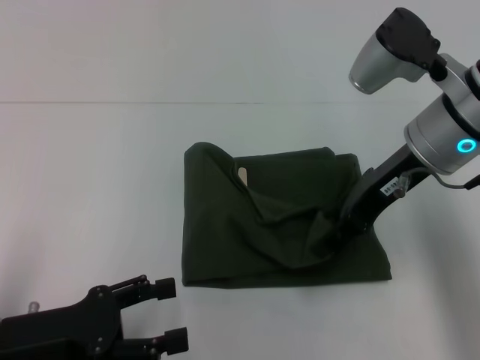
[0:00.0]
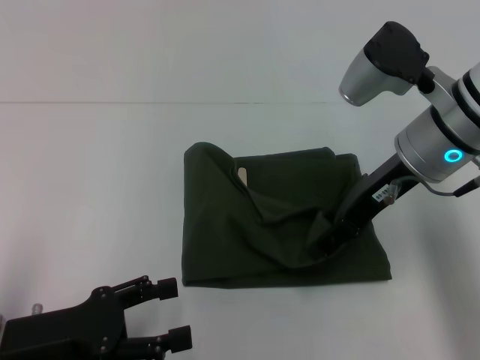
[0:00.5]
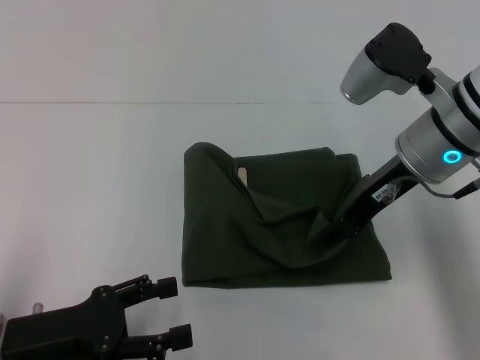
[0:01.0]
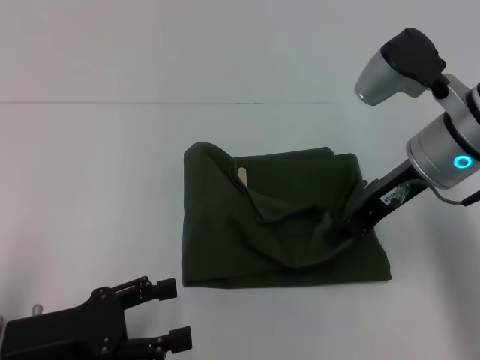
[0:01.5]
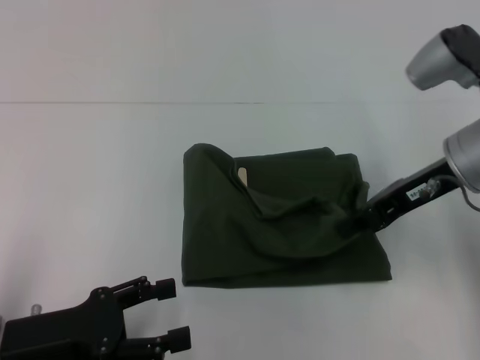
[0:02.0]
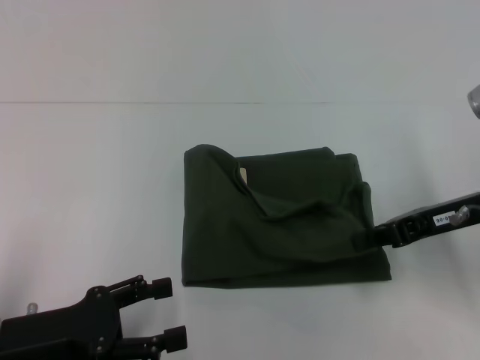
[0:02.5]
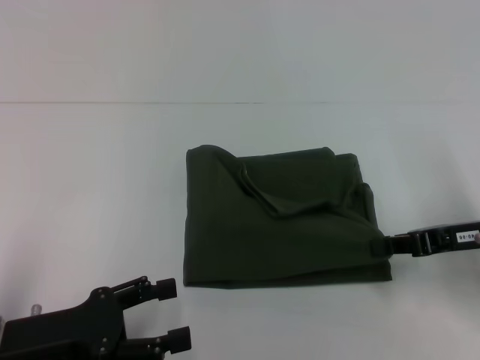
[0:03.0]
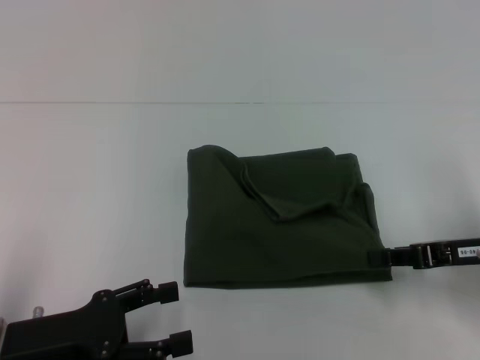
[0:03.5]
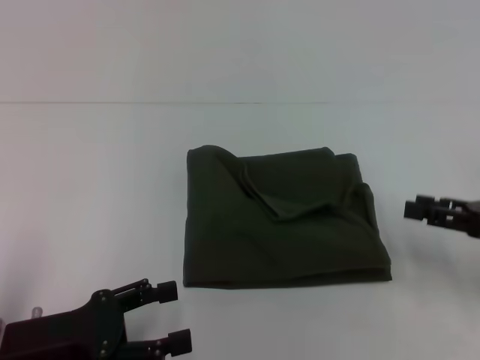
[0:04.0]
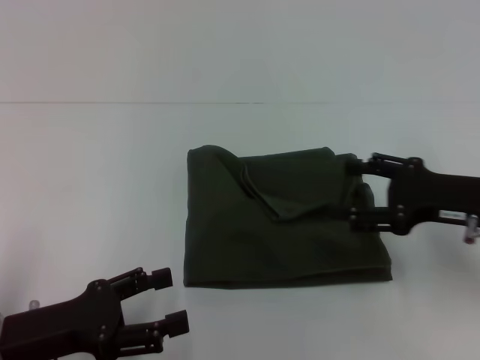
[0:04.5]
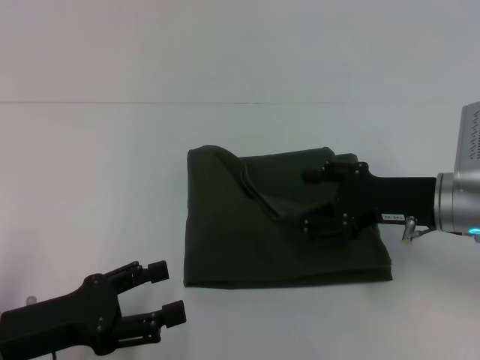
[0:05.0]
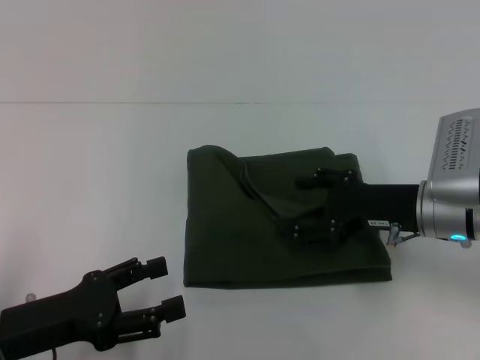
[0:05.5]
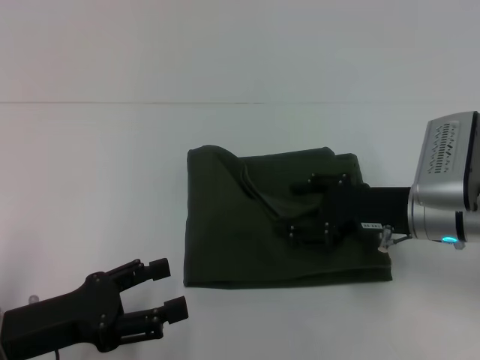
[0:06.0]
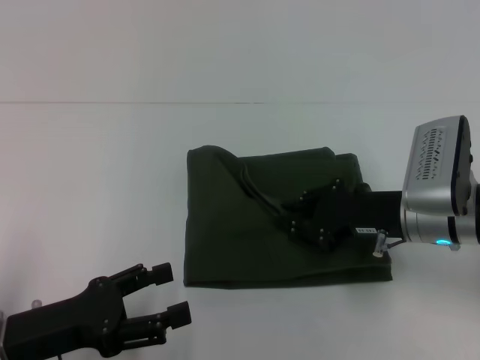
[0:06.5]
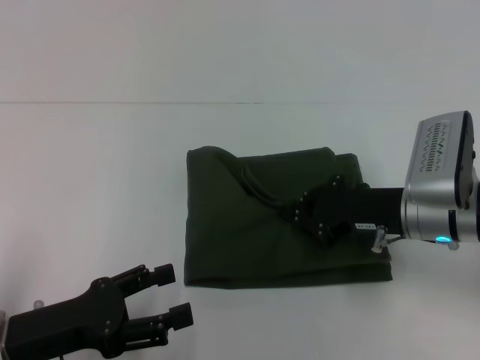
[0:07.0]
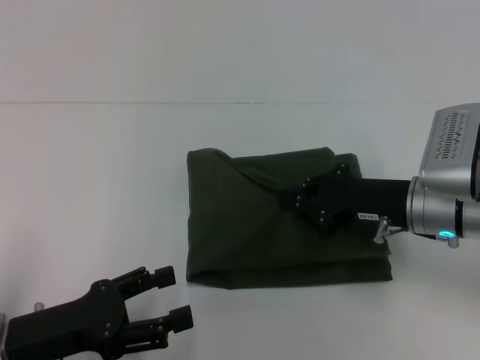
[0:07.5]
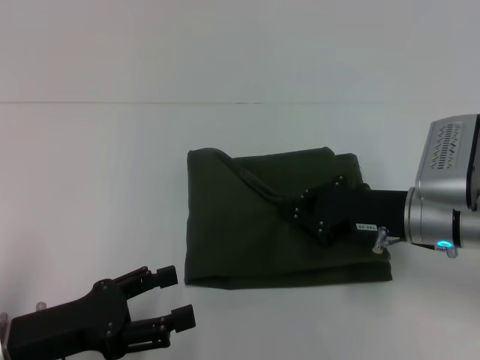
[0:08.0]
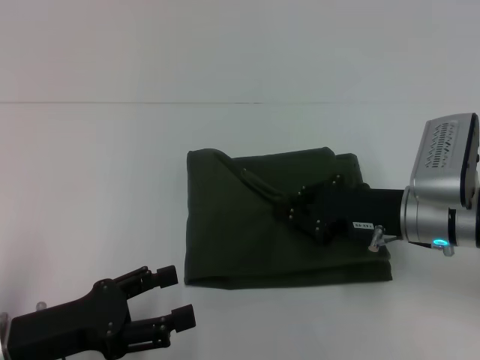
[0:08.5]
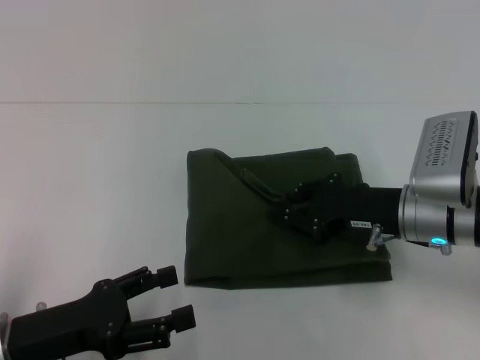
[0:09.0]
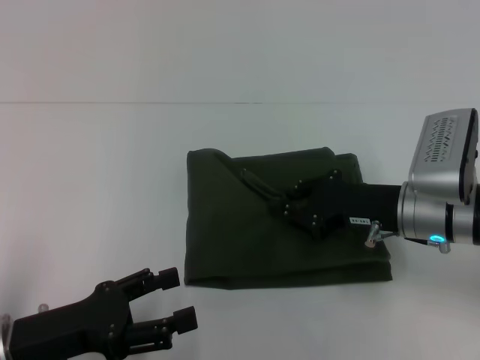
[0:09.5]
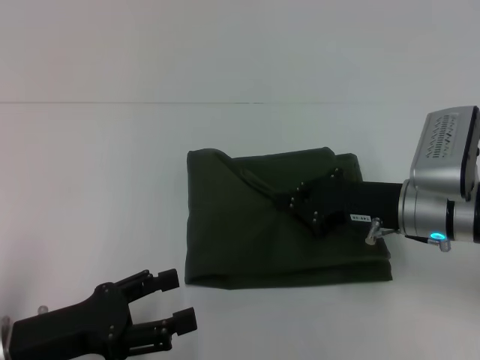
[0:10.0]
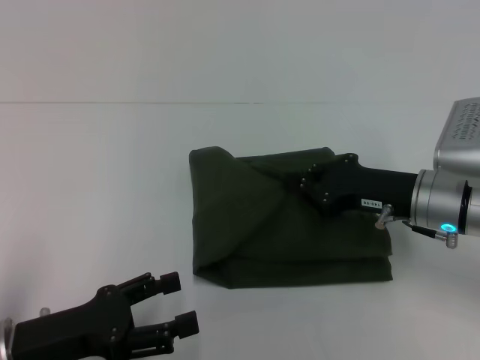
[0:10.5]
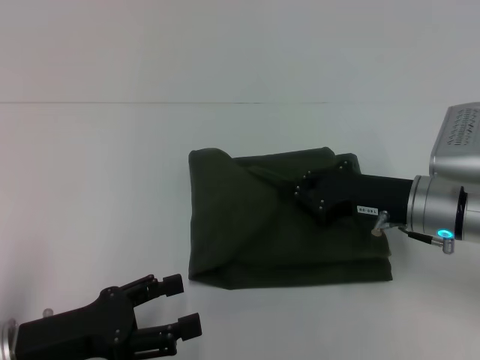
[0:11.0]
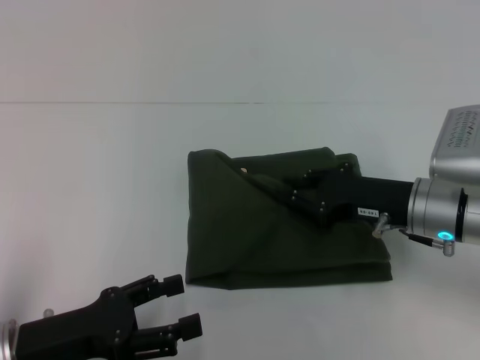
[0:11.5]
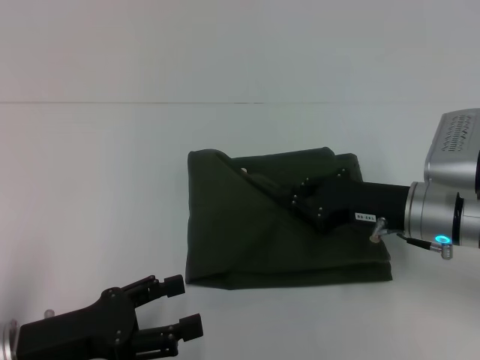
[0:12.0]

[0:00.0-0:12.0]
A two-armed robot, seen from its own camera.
0:00.0 to 0:02.0: The right gripper moves some 5 cm, and closes up.
0:02.0 to 0:04.0: The right gripper heads to the right, backward and downward, covering roughly 15 cm, and opens its fingers.
0:04.0 to 0:06.0: The right gripper travels to the left and forward by about 15 cm, and opens up.
0:06.0 to 0:08.0: The right gripper closes its fingers.
0:08.0 to 0:10.0: Neither gripper changes place.
0:10.0 to 0:12.0: The grippers move only a little.

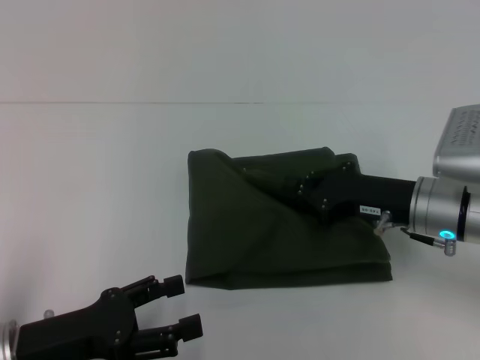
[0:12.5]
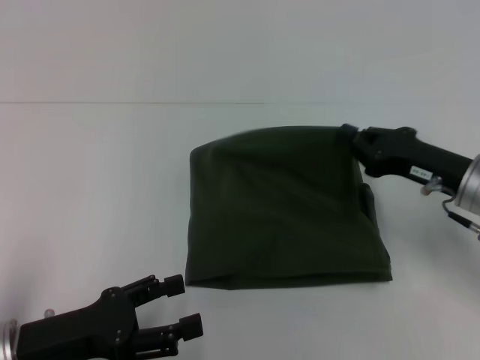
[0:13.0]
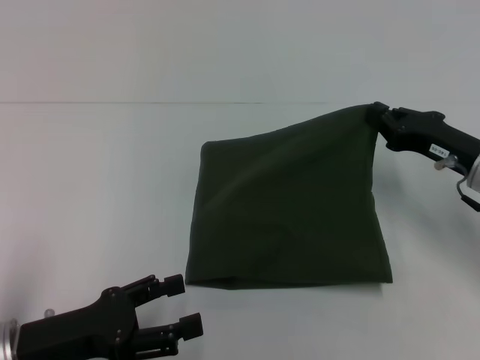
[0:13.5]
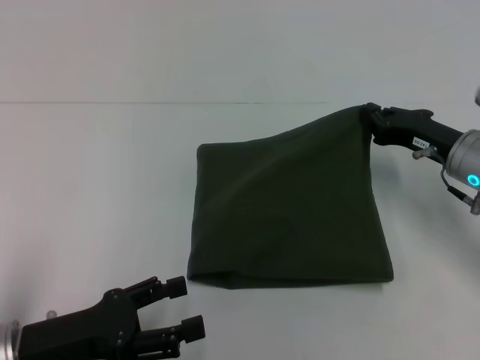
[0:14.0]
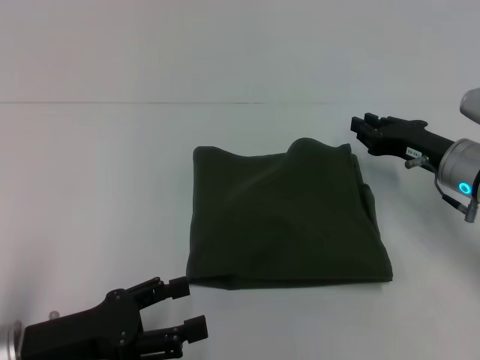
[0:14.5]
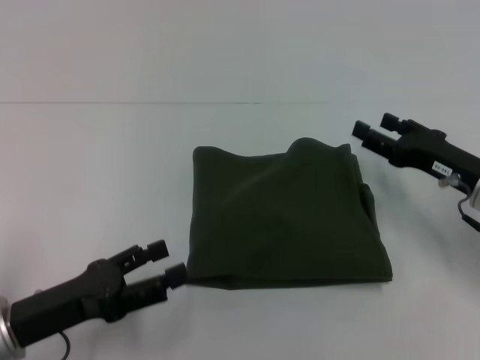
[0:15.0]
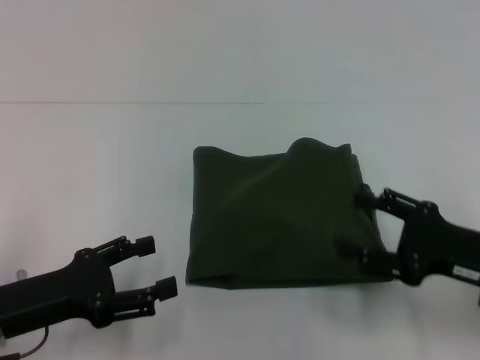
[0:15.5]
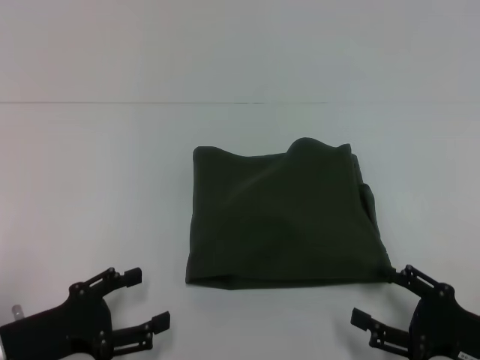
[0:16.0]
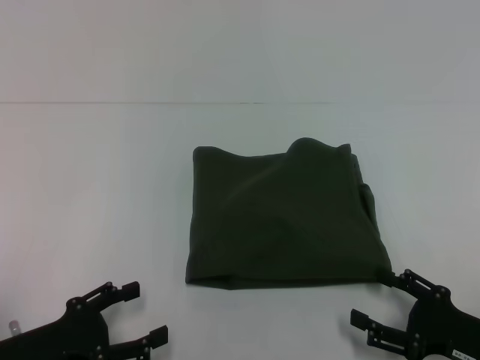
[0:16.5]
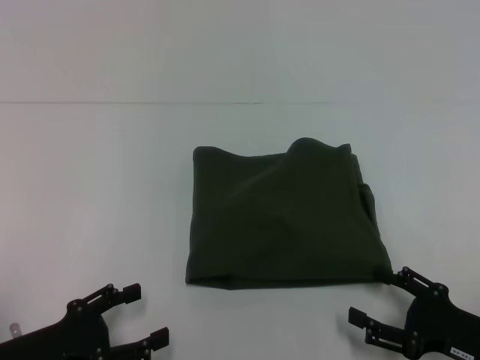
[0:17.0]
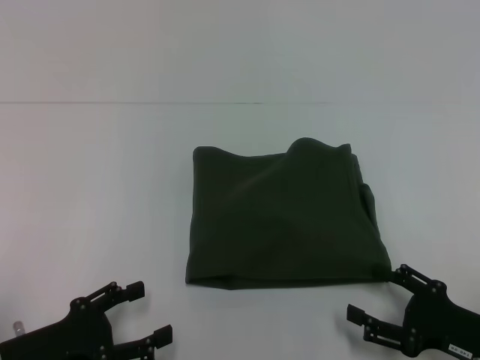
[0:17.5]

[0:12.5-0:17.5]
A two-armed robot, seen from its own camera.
0:12.5 to 0:15.0: The right gripper travels to the right by roughly 5 cm, and opens its fingers.
0:15.0 to 0:17.5: The right gripper goes about 15 cm backward and downward, and opens.

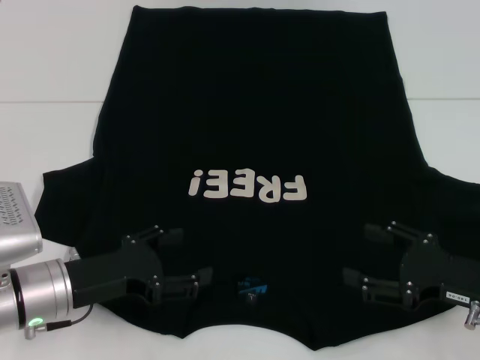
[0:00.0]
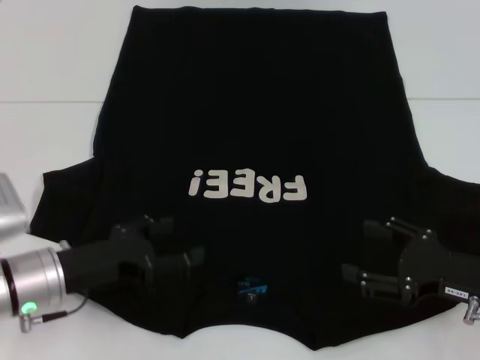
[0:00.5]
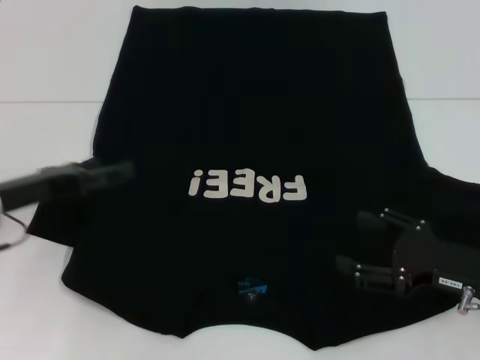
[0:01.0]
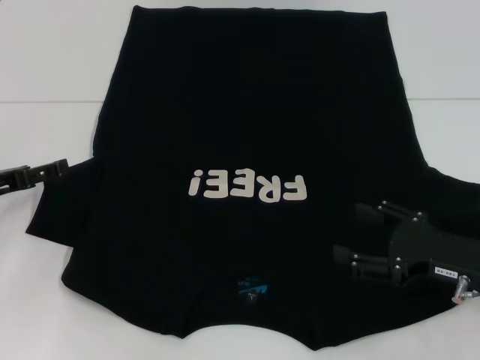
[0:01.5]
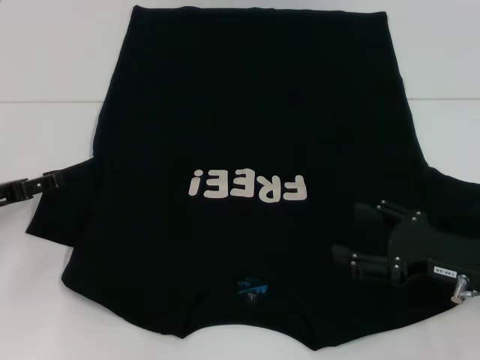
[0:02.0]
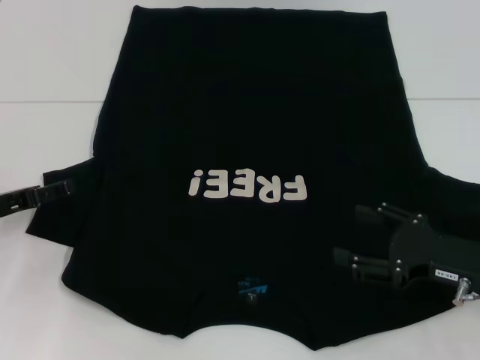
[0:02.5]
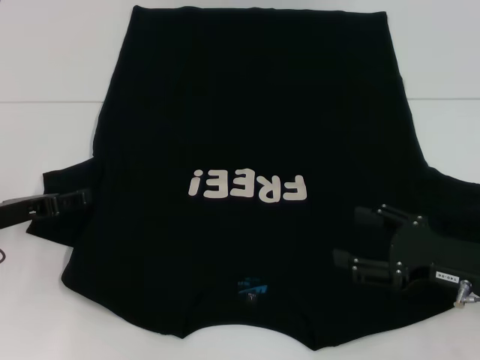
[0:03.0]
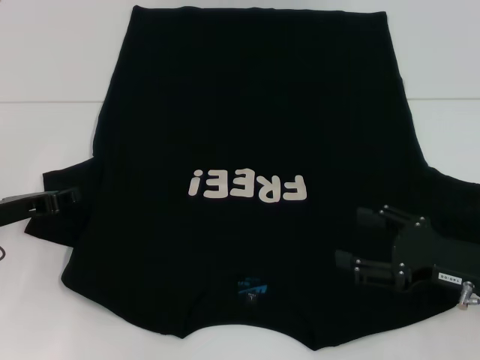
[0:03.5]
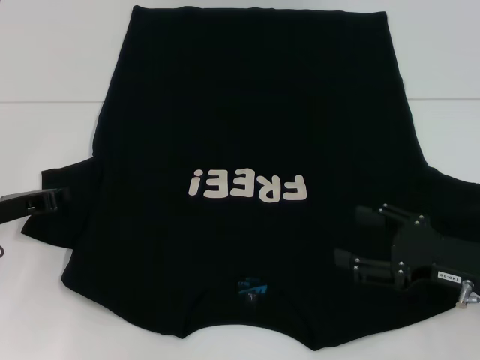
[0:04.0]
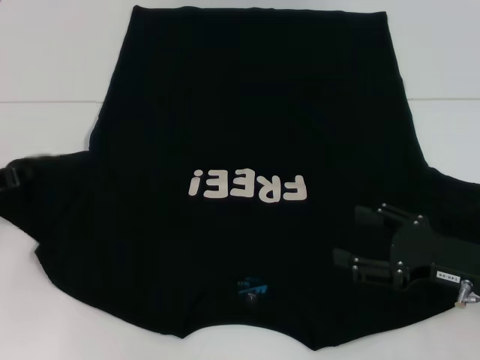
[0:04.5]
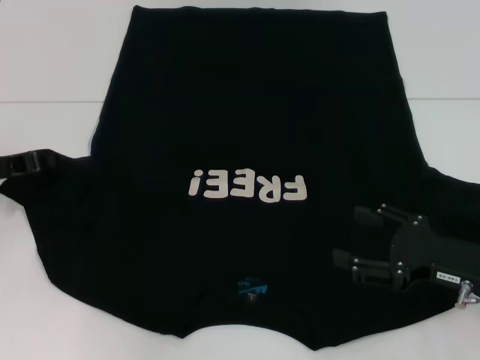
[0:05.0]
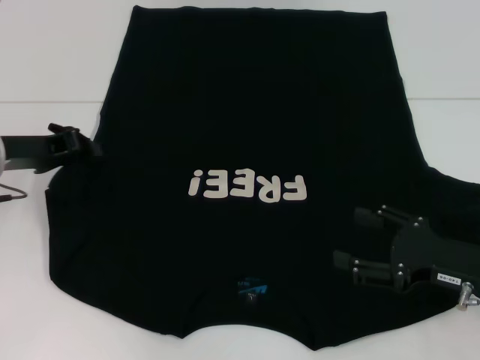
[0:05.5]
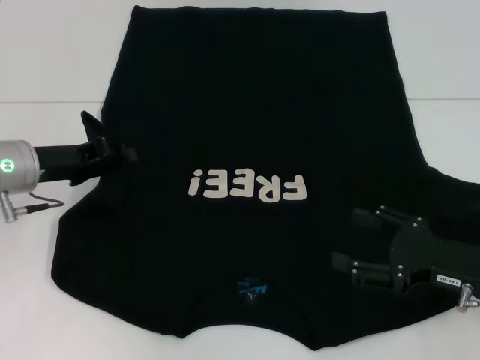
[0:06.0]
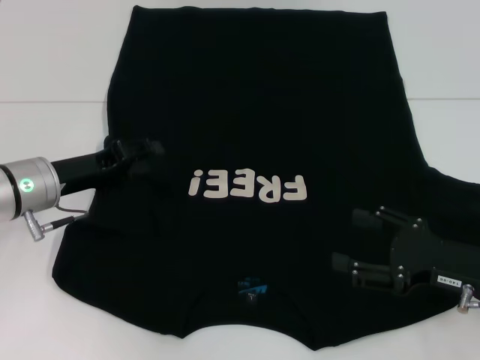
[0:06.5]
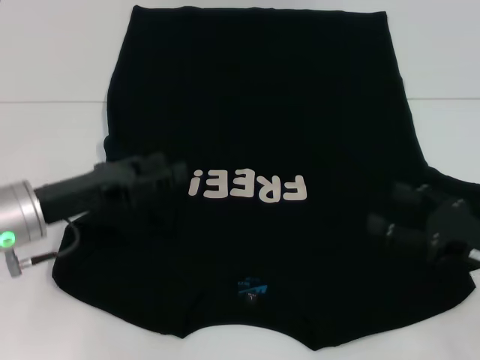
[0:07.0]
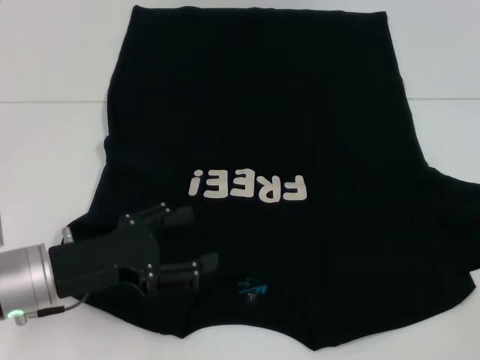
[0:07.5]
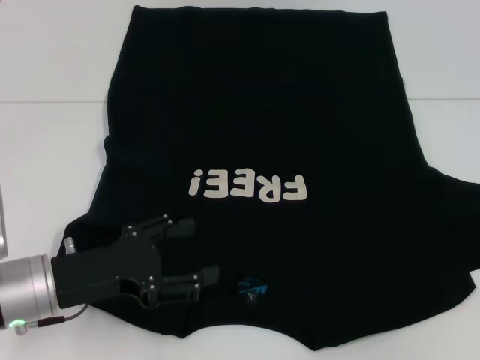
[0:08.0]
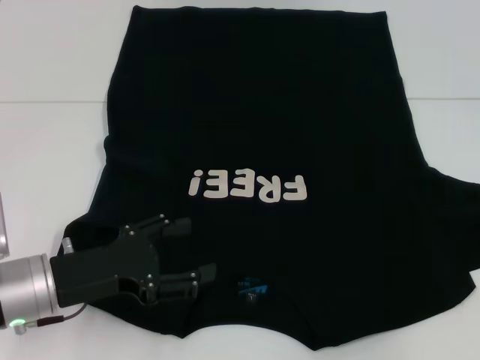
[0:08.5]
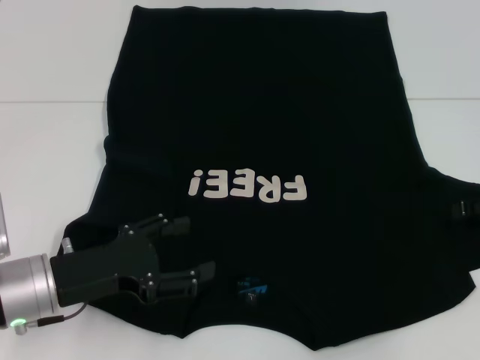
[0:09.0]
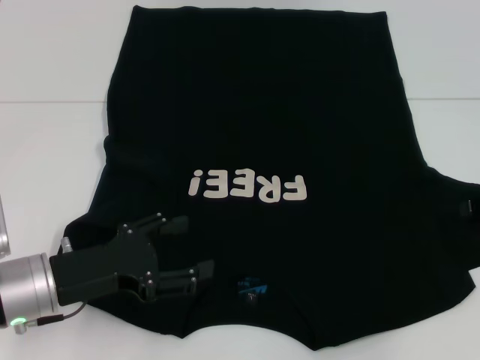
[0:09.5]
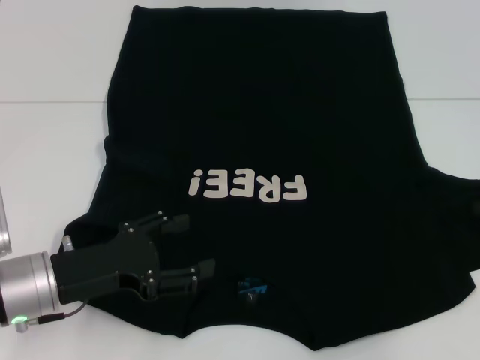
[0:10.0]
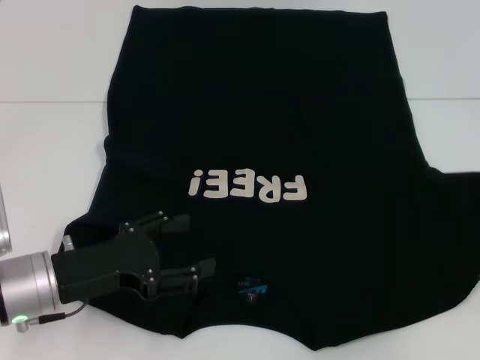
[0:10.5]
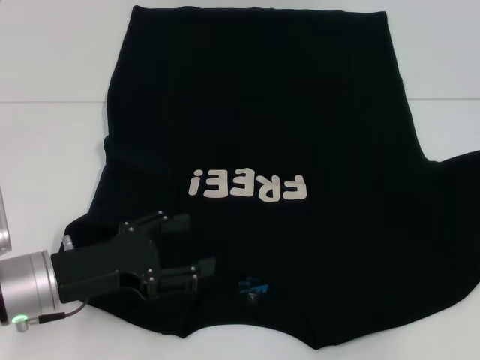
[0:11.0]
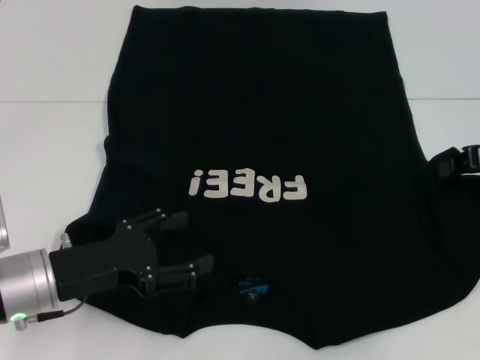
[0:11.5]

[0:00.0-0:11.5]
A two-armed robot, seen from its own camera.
Step, 0:00.0 to 0:06.5: Fold the bottom left sleeve with your left hand.
0:00.0 to 0:02.0: The left gripper travels to the left and forward by some 15 cm.
0:02.0 to 0:04.0: The left gripper closes up.
0:04.0 to 0:06.0: The left gripper ends up about 10 cm from where it was.
0:06.0 to 0:07.5: The left gripper travels backward by roughly 10 cm, and opens; the right gripper heads to the right and upward, covering approximately 15 cm.
0:09.5 to 0:11.5: The right gripper moves about 5 cm, and closes.
